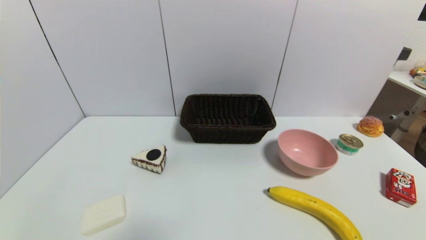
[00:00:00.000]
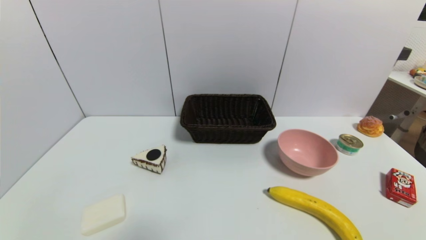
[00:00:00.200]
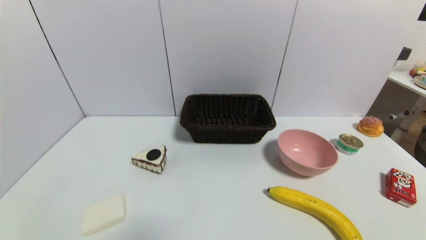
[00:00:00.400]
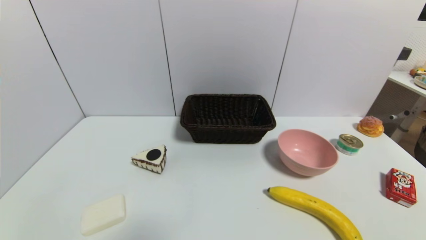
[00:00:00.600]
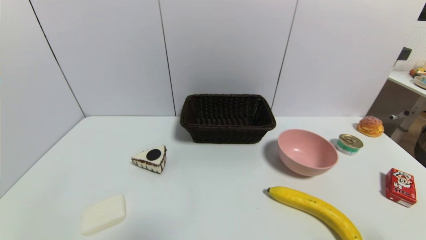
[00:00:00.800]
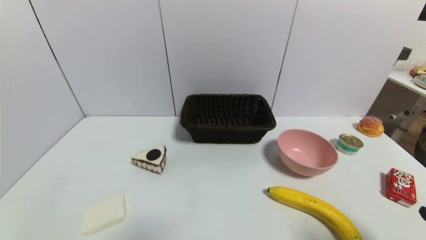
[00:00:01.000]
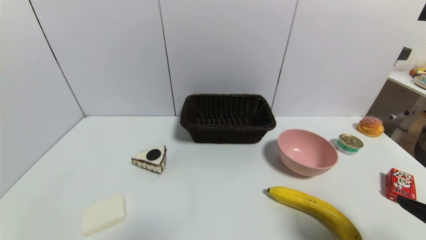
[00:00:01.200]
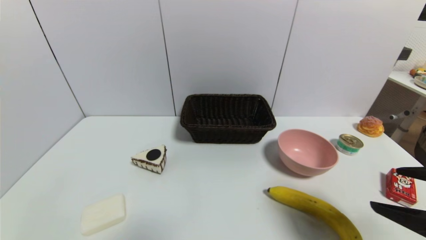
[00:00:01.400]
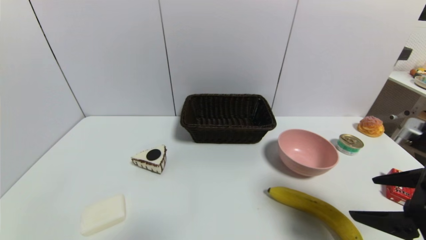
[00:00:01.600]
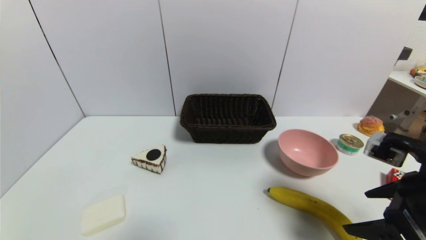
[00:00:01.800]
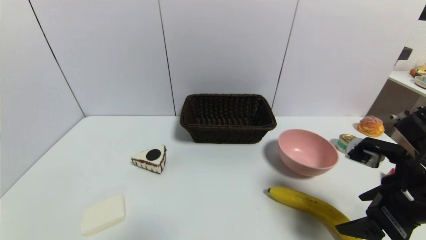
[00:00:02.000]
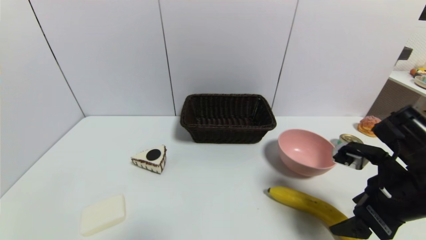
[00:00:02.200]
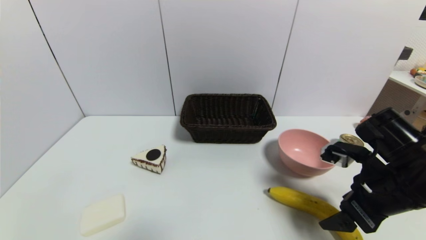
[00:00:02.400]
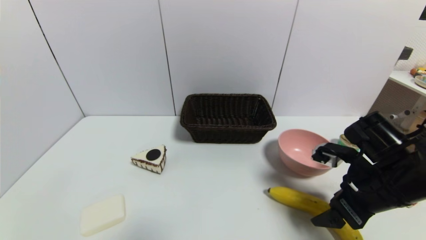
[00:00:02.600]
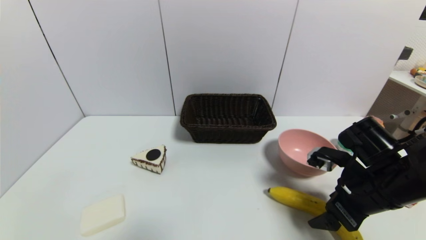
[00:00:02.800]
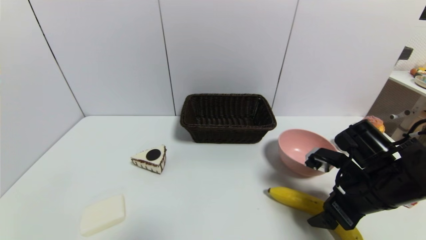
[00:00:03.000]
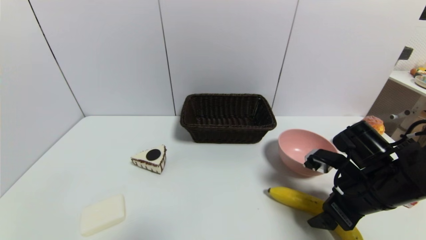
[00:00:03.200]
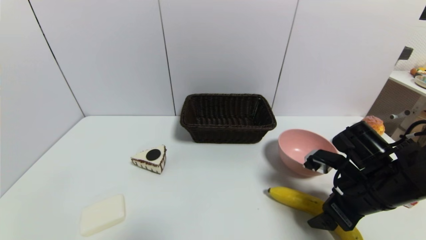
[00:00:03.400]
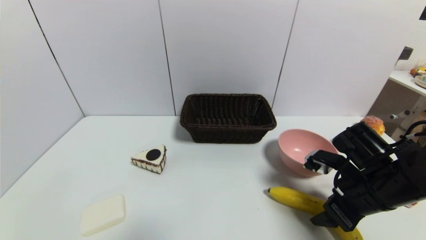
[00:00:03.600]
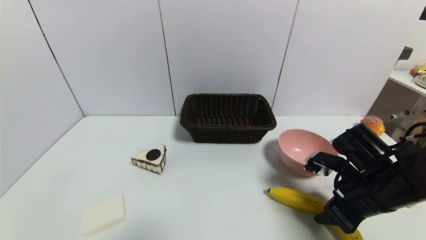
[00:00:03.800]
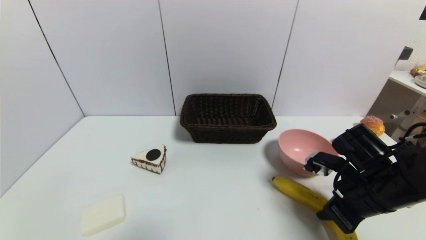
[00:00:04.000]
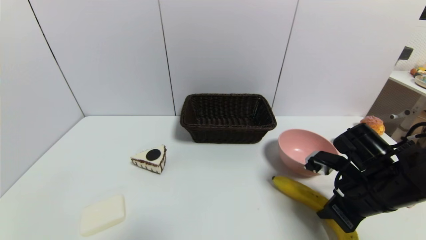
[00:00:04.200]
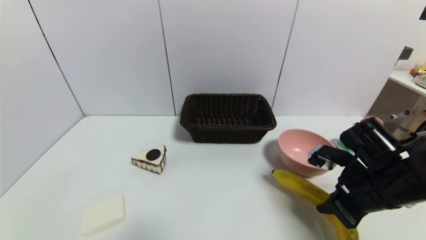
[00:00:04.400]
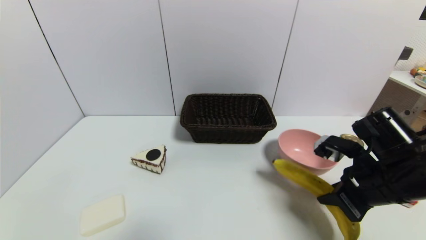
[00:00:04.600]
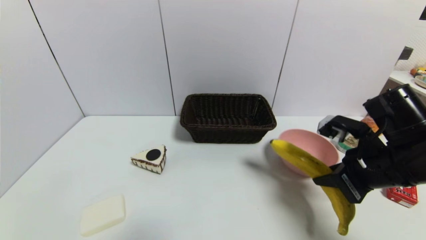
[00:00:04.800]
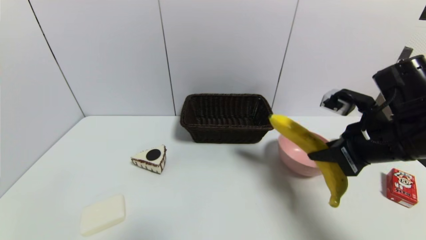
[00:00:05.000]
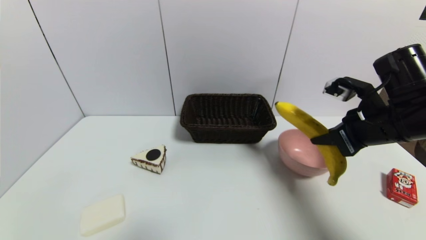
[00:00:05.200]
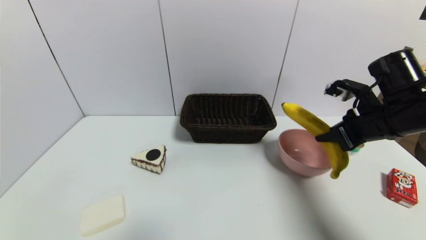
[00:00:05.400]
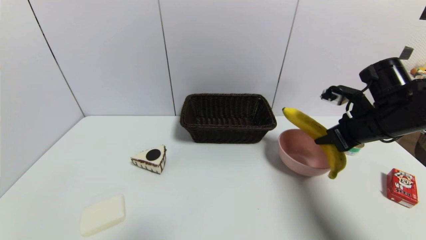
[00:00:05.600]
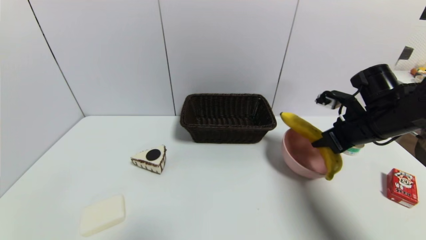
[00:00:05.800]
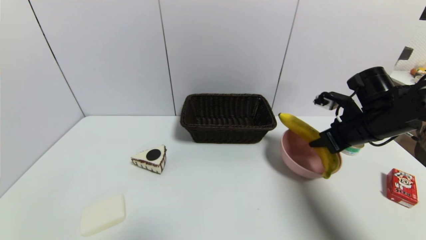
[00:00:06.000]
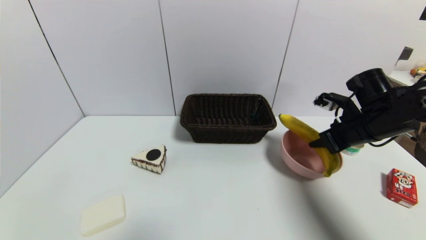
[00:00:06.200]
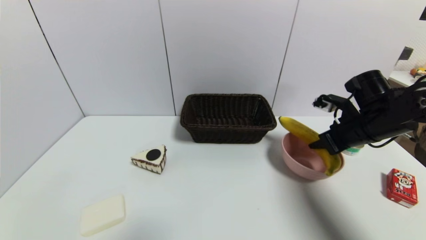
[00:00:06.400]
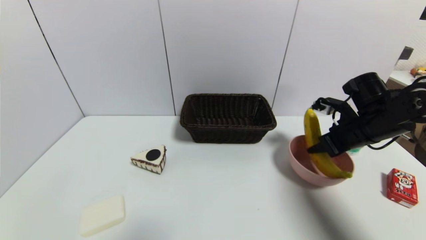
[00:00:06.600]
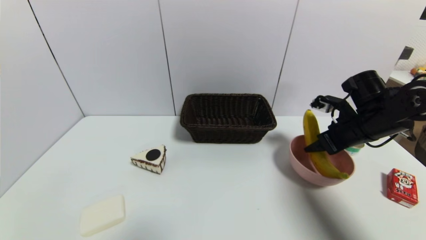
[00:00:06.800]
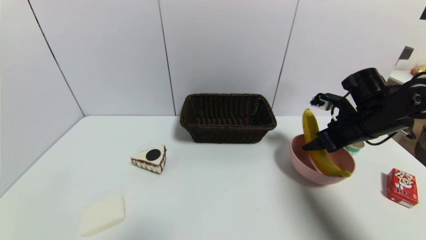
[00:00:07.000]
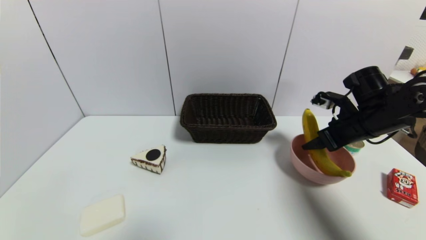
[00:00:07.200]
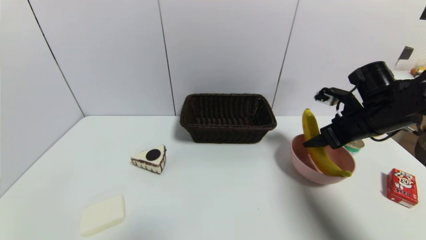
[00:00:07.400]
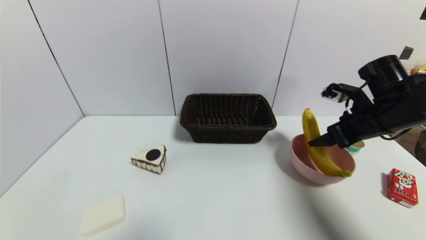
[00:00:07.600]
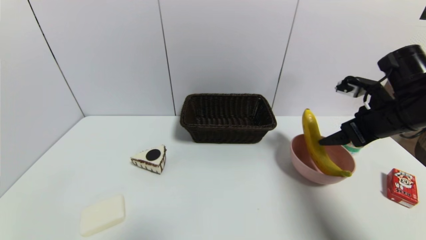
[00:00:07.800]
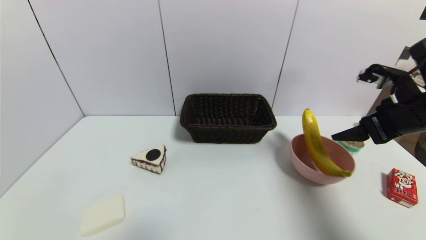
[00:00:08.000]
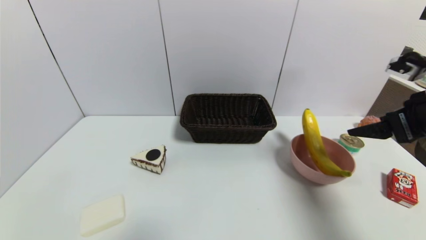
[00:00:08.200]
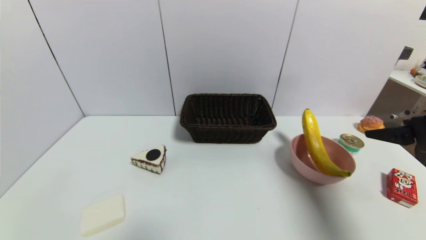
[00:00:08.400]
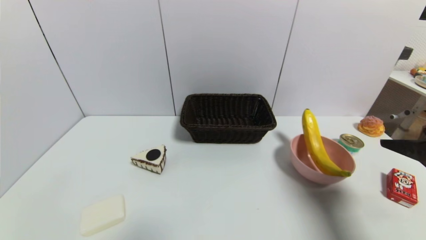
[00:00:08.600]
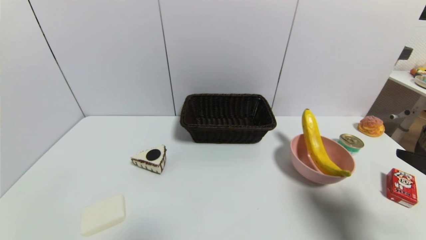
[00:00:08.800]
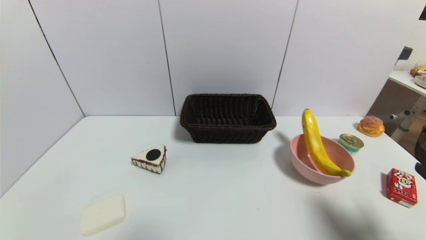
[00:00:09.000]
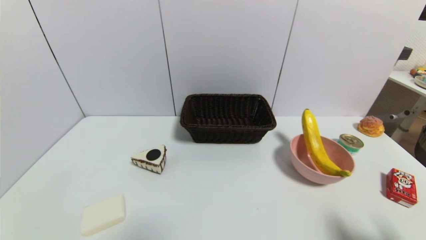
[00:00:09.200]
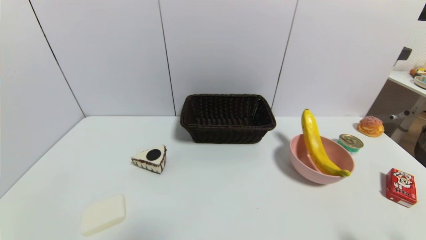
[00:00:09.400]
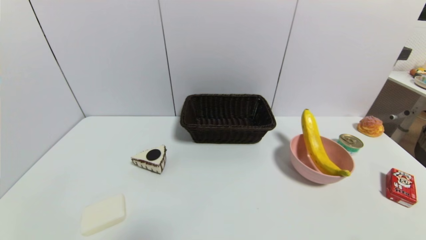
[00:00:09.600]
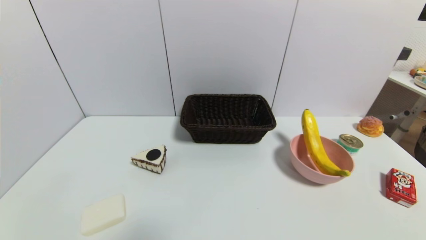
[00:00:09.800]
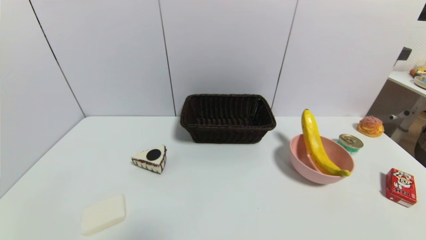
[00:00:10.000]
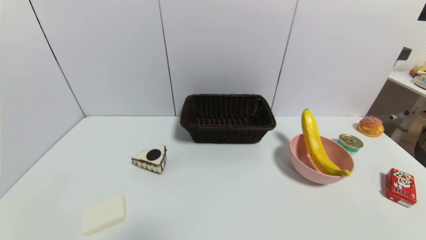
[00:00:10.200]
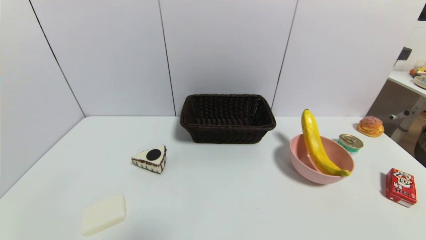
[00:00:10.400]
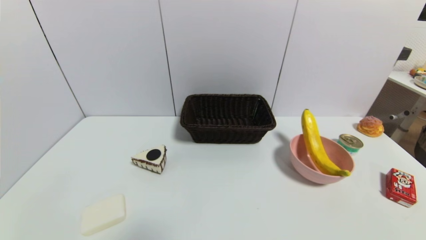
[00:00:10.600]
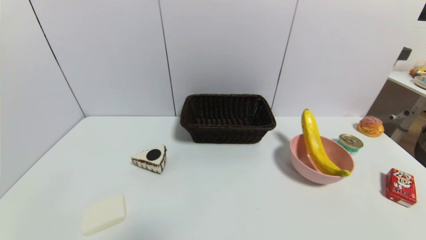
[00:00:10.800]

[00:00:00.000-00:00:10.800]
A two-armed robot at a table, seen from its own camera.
Task of the whole recording: use a gripper to pick the target object and place on the pink bowl.
Step, 00:00:00.000 to 00:00:04.000: Grasp the banana with the right gripper.
Step, 00:00:04.200 to 00:00:07.000: Place the banana on the pink bowl with the right gripper.
00:00:00.000 to 00:00:01.600: The right gripper heads upward and forward, covering about 20 cm.
00:00:01.600 to 00:00:03.000: The right gripper is displaced downward and forward by roughly 10 cm.
00:00:03.000 to 00:00:04.600: The right gripper closes up.
00:00:04.600 to 00:00:06.200: The right gripper goes roughly 10 cm forward.
00:00:06.200 to 00:00:07.800: The right gripper shifts about 5 cm upward, and opens up.
00:00:07.800 to 00:00:09.200: The right gripper shifts about 25 cm backward.
00:00:09.200 to 00:00:10.800: The right gripper shifts some 10 cm downward and backward.
